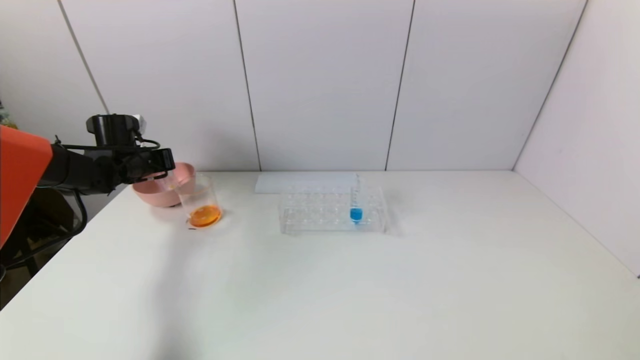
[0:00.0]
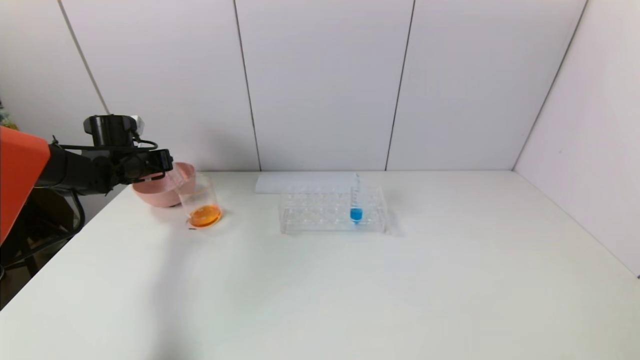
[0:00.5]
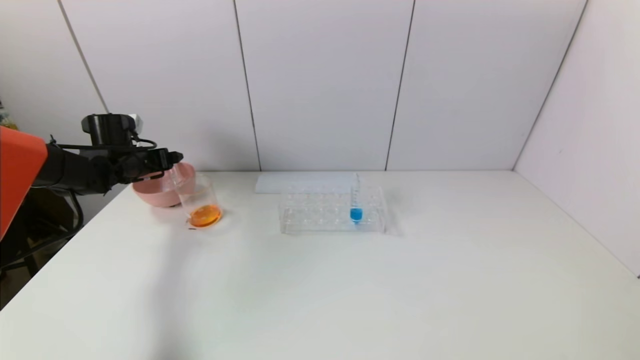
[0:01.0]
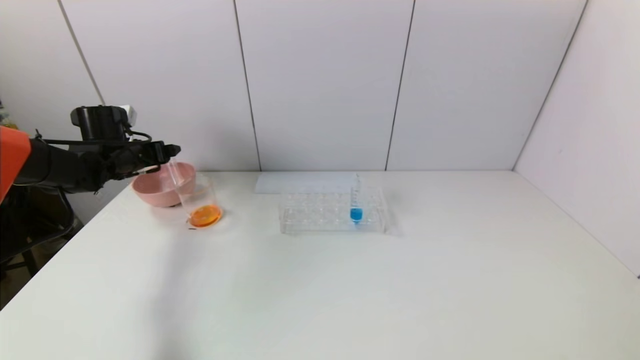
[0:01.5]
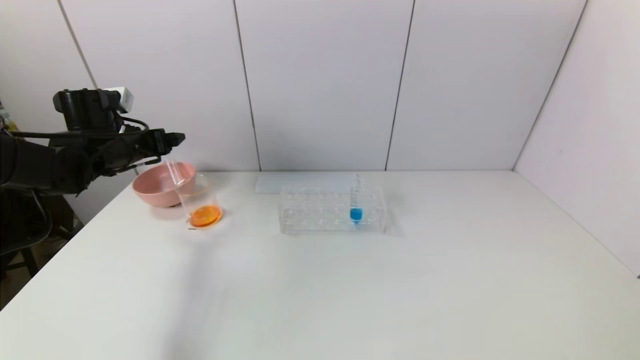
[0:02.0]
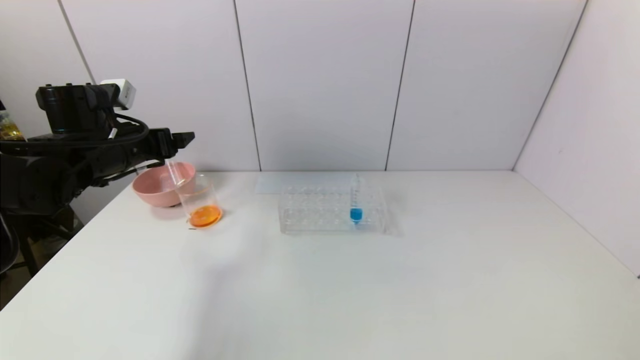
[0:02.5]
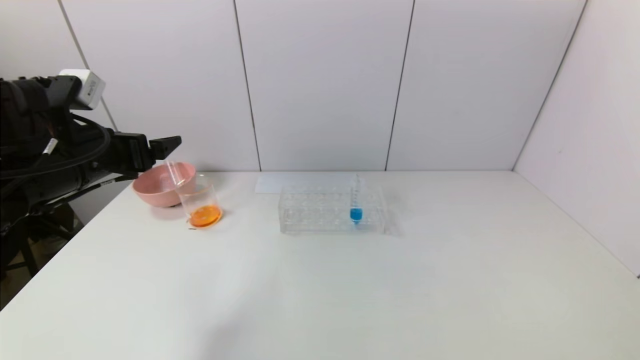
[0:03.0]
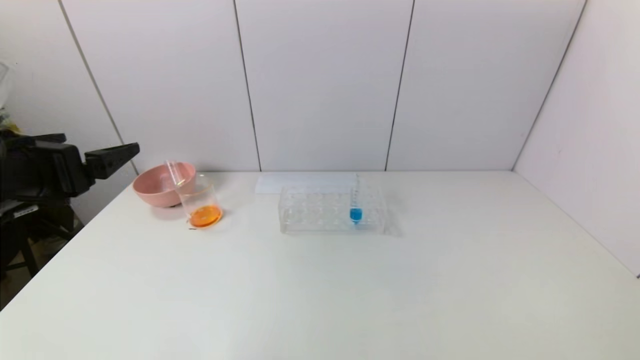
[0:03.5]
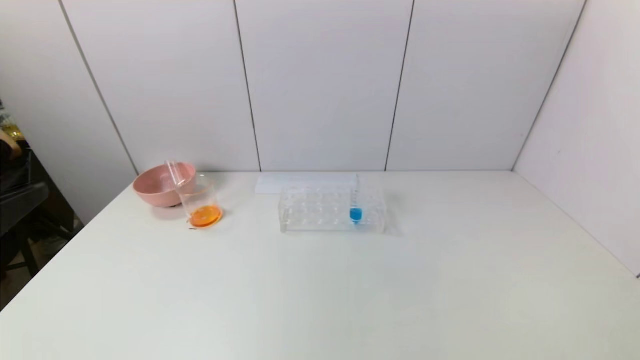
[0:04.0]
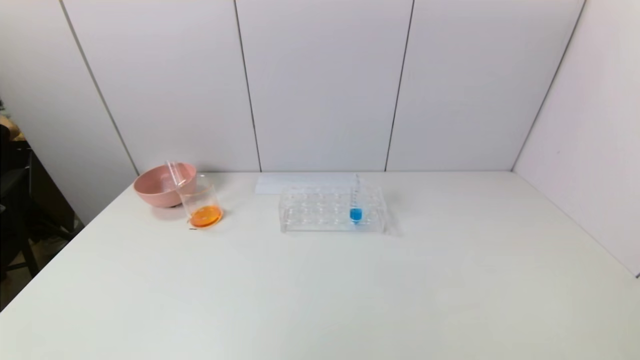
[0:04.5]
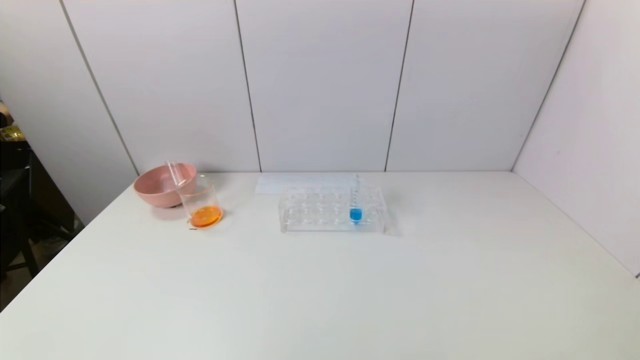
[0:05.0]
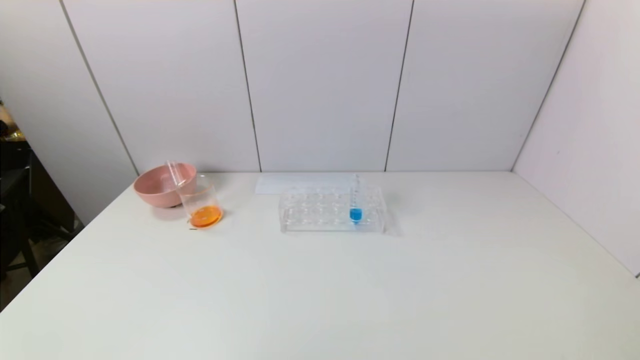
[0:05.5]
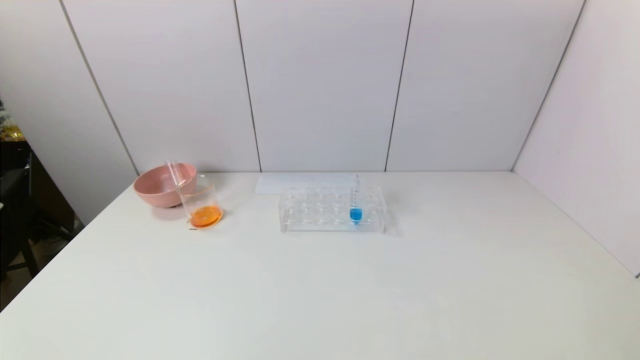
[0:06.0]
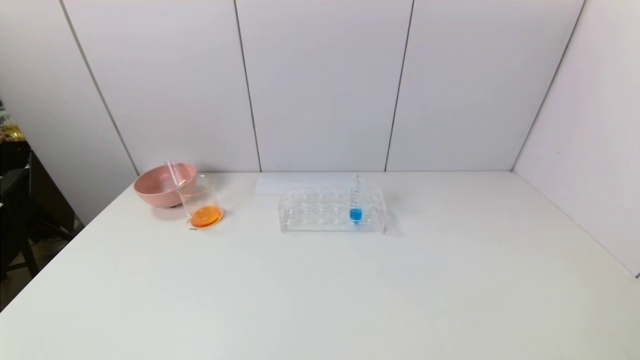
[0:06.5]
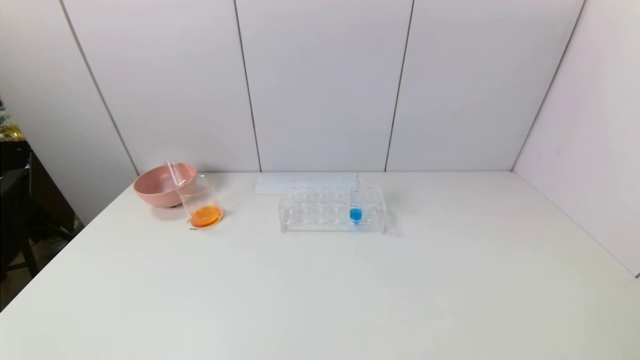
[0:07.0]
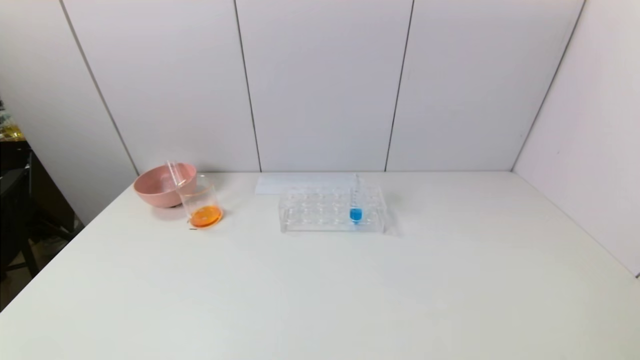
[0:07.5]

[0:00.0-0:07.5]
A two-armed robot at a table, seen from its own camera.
Task of the whole recording: pick up the test tube with yellow pigment and the test tube with red pigment by grippers and pour them into the beaker.
0:00.0 to 0:02.0: The left gripper travels backward and upward by roughly 10 cm, and opens up.
0:02.0 to 0:04.0: The left gripper heads backward, covering roughly 35 cm.
